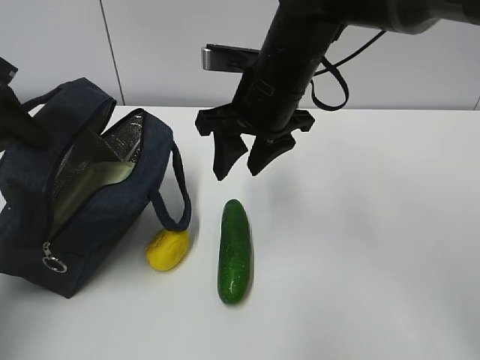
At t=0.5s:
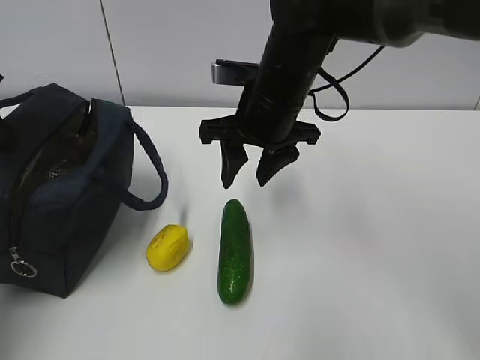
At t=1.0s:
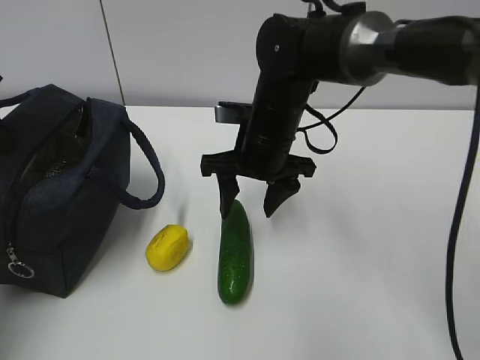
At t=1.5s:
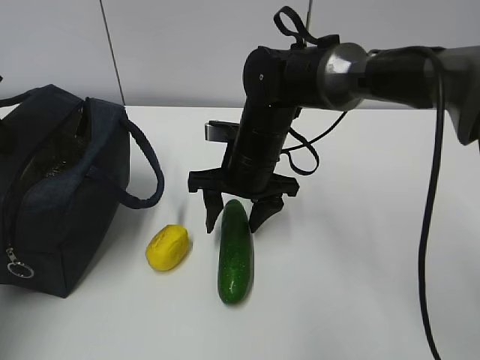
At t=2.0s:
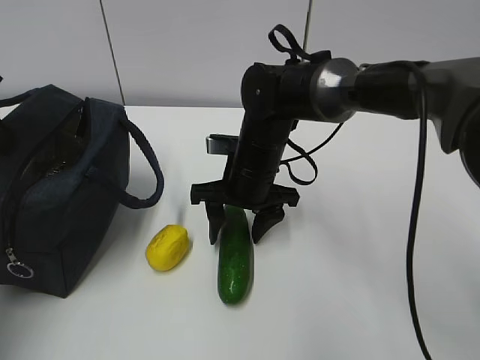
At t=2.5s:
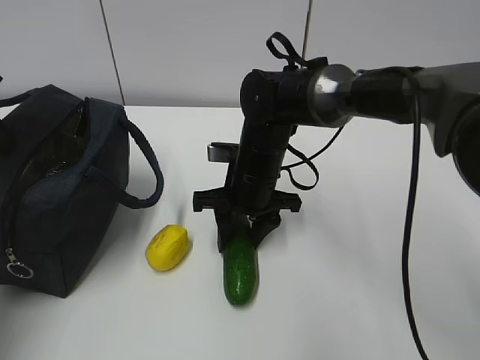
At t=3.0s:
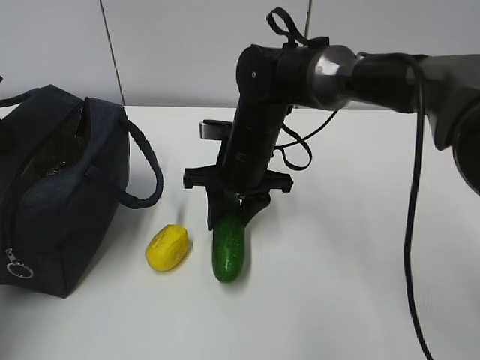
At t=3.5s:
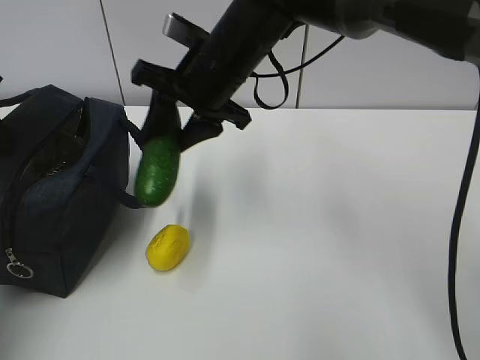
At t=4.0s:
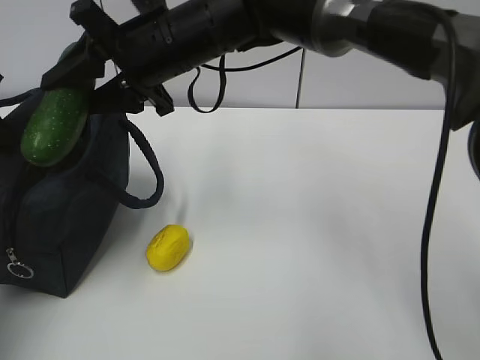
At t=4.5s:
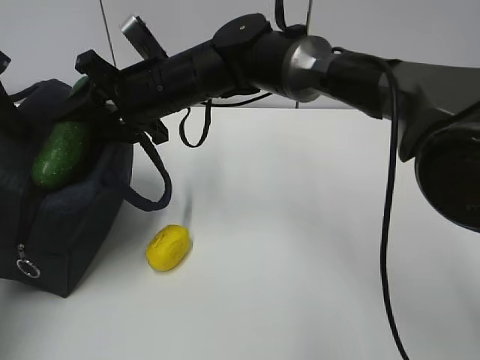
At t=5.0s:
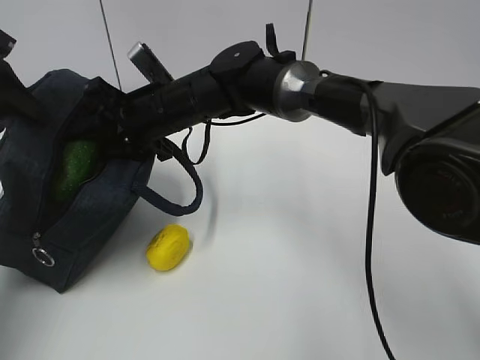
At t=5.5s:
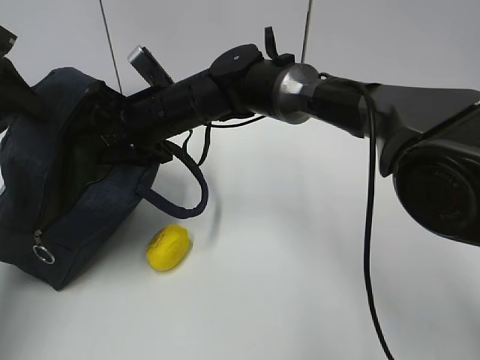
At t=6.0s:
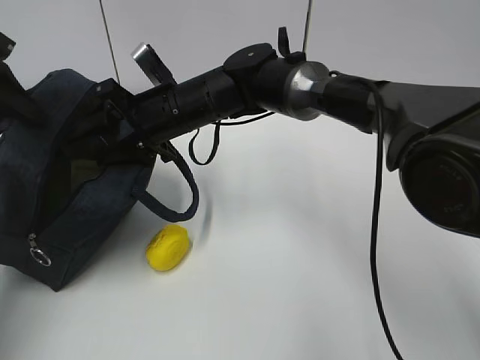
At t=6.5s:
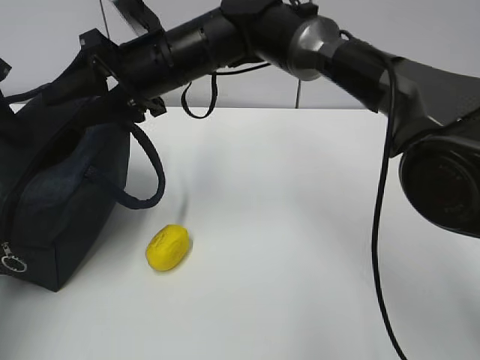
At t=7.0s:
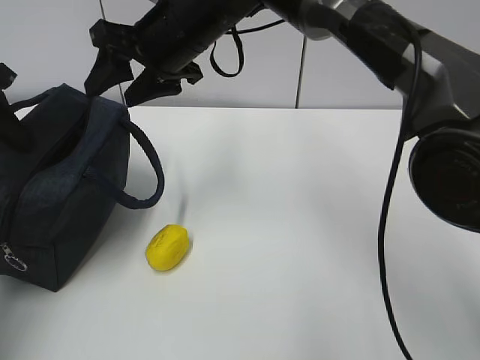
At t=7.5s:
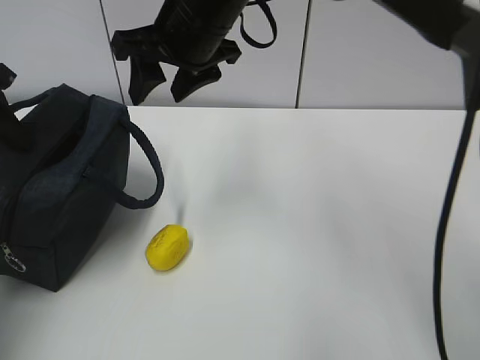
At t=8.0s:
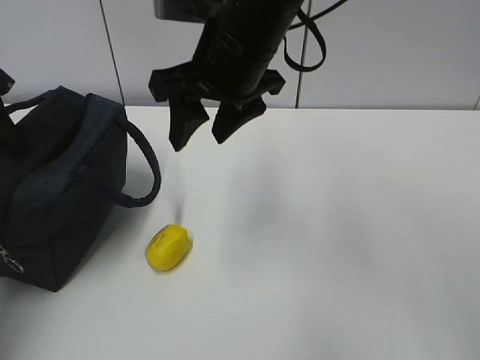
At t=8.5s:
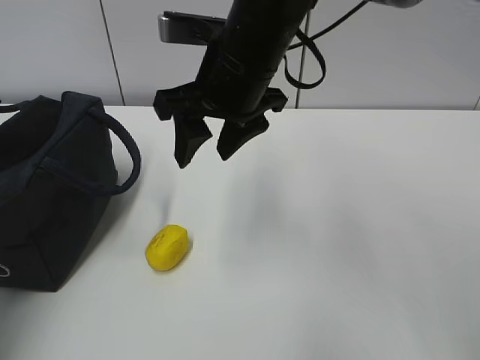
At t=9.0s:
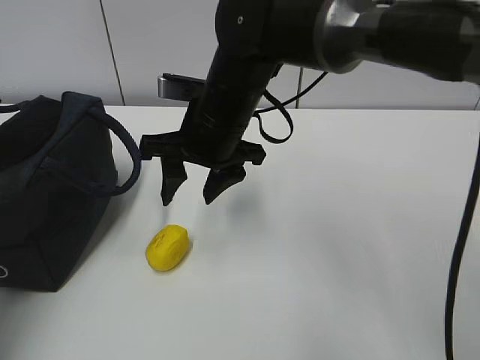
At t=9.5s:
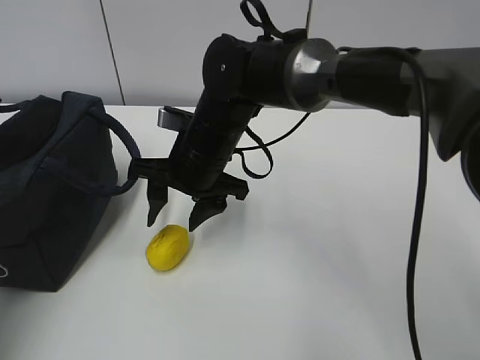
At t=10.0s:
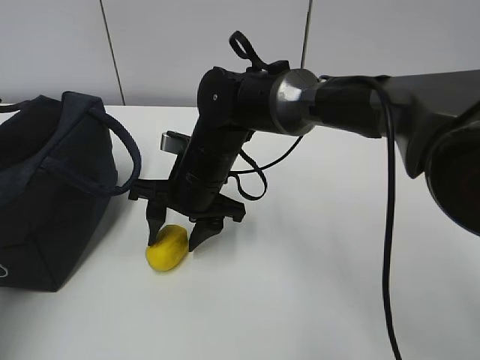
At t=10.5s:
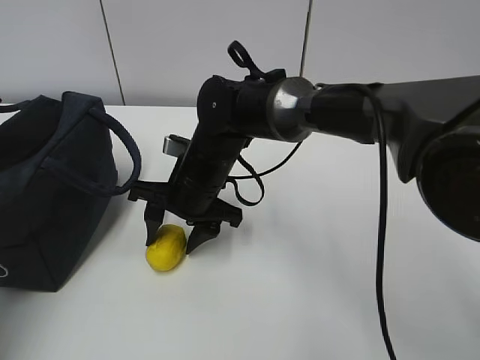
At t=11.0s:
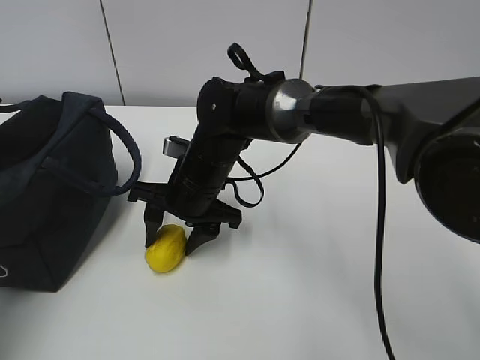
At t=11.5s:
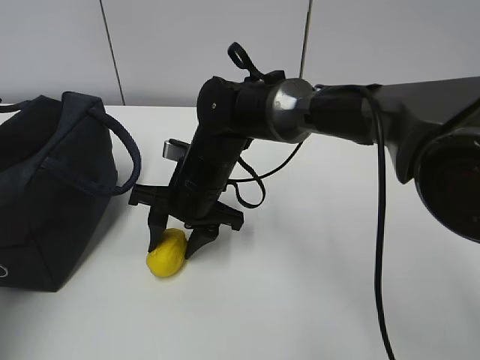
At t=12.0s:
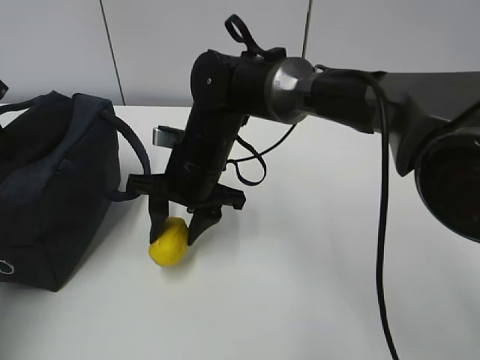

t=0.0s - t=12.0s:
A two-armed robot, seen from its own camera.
Step, t=0.0s - t=4.5s: Grab the lemon with your right hand.
Step, t=5.0s - t=7.5s: Secure the lunch bag with your left hand.
Step, t=8.0s - t=9.0s: Grab the lunch bag with your right hand.
t=0.0s - t=2.0s: The right gripper heads downward, covering approximately 10 cm.
t=2.0s - t=4.0s: The right gripper shifts roughly 15 cm upward and to the left.
t=4.0s - t=6.0s: The right gripper goes roughly 10 cm downward.
t=6.0s - t=8.0s: The right gripper goes approximately 15 cm upward, backward and to the right.
t=8.0s - t=10.0s: The right gripper moves downward, roughly 15 cm.
t=10.0s - t=12.0s: The grippers make only small movements.

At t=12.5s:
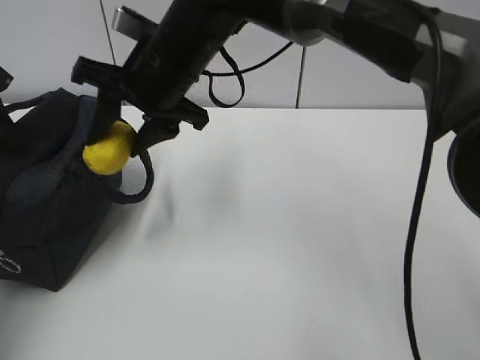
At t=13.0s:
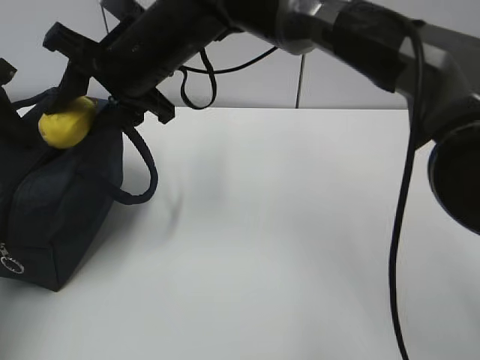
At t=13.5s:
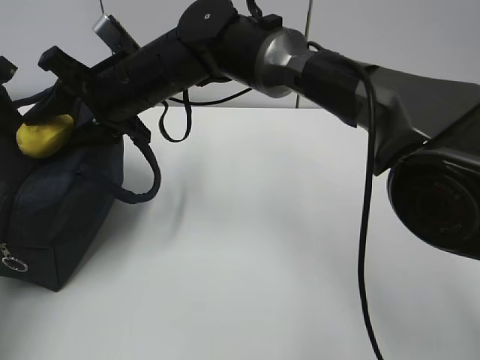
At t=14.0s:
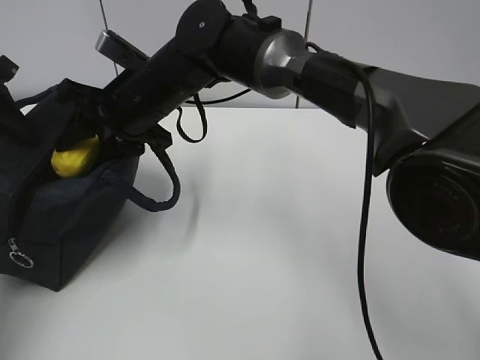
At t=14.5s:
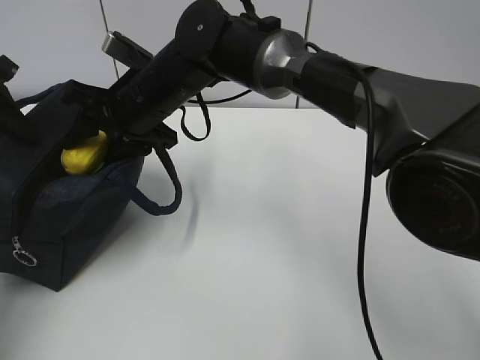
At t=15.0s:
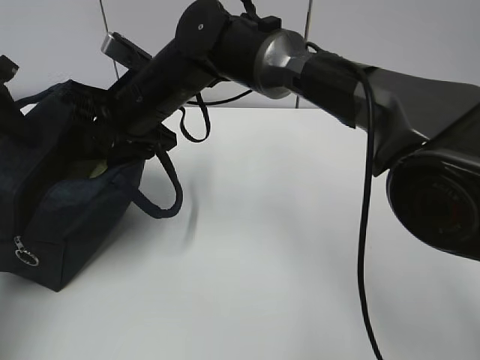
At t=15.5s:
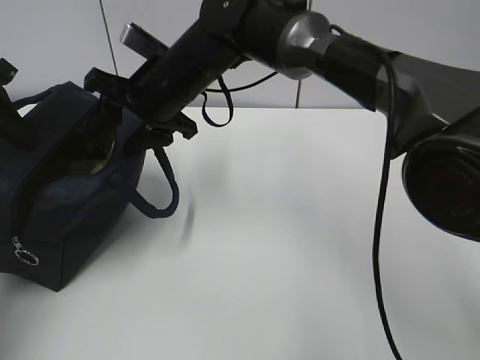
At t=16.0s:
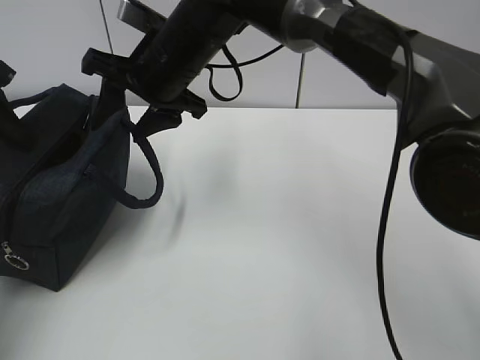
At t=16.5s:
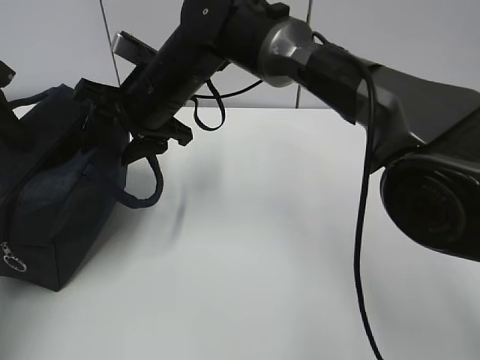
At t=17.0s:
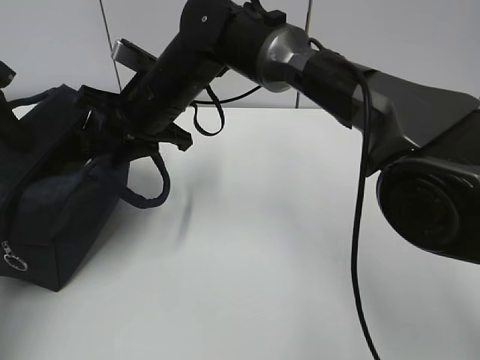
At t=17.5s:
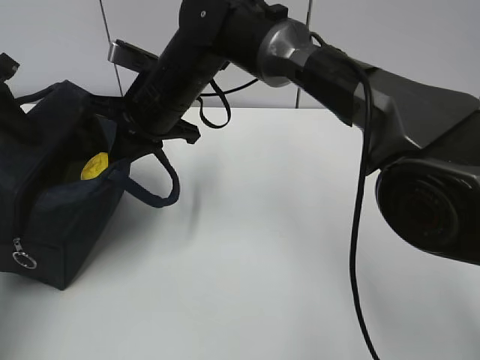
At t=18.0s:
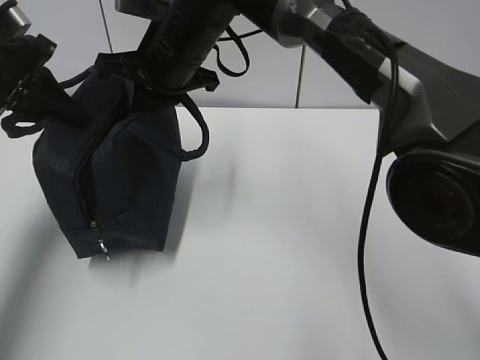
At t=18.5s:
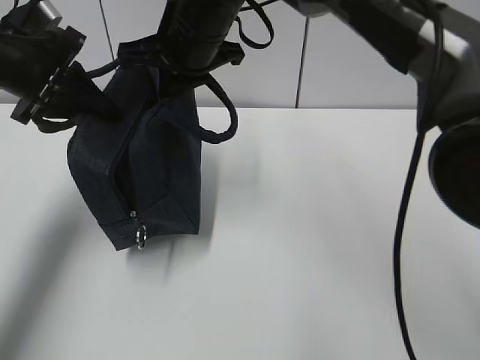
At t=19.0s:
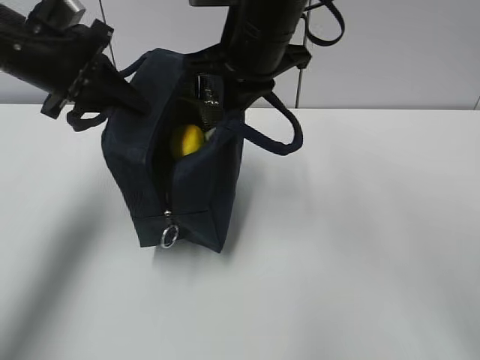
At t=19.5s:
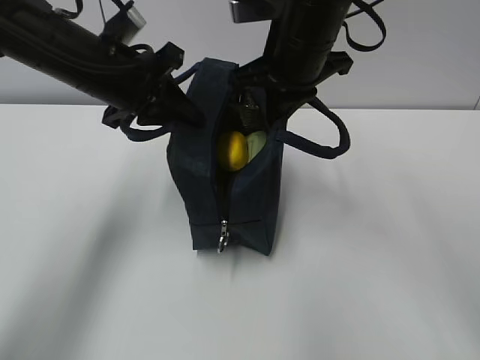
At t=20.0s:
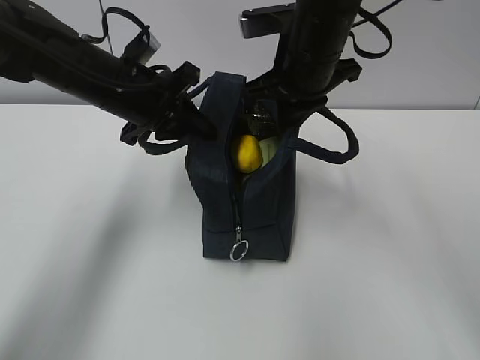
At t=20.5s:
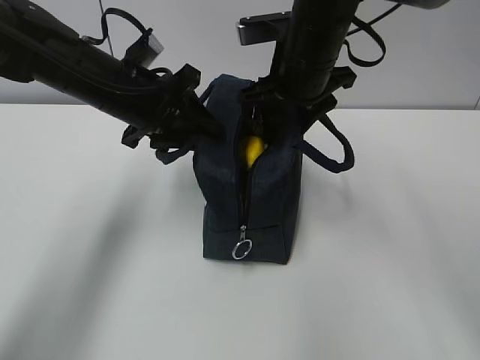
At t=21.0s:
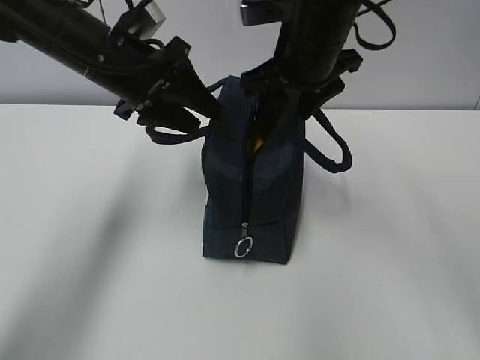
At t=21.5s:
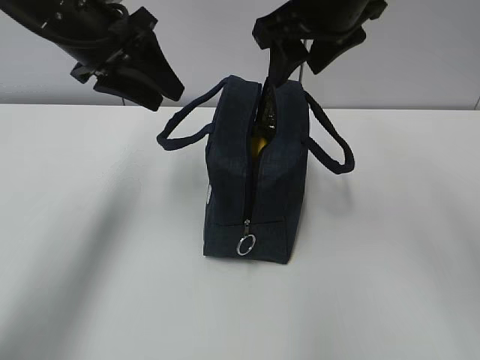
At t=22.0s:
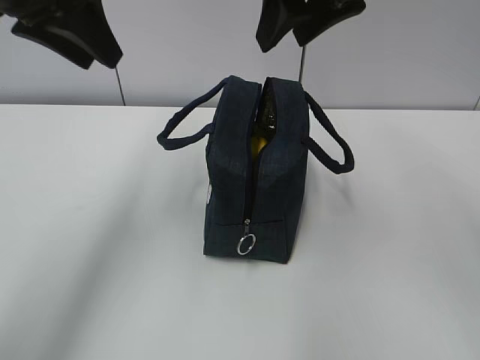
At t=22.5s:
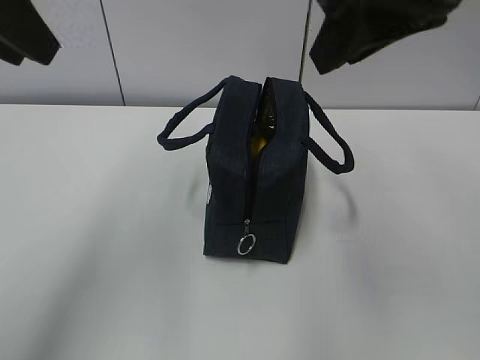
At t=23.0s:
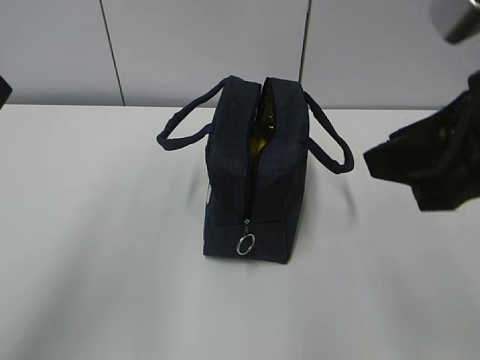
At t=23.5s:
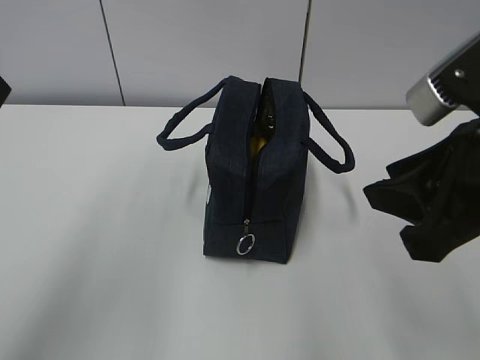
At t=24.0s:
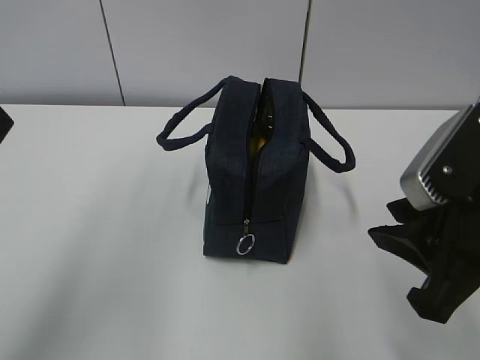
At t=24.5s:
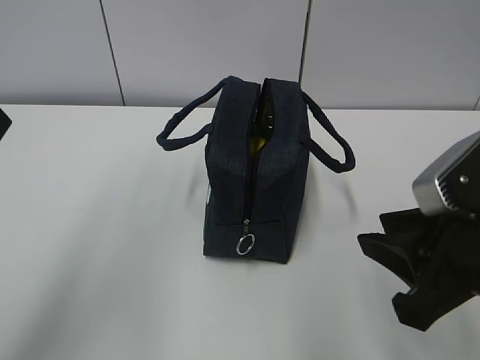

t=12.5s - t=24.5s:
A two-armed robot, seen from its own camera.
t=12.5s - t=14.5s: The right gripper ends up roughly 5 cm from where it was.
t=14.5s - t=16.5s: The grippers stay close to where they were, moving slightly.
t=16.5s - t=18.5s: The right gripper goes roughly 5 cm upward, and closes its fingers. The left gripper shifts about 10 cm to the right.
t=18.5s - t=20.5s: The grippers both shift to the right by approximately 10 cm. The left gripper opens. The right gripper opens.
t=20.5s - t=22.5s: The right gripper shifts roughly 20 cm backward and upward, while the left gripper shifts some 25 cm upward, backward and to the left.
t=22.5s - t=24.5s: The left gripper goes approximately 5 cm backward. Meanwhile the right gripper moves downward and backward, some 20 cm.

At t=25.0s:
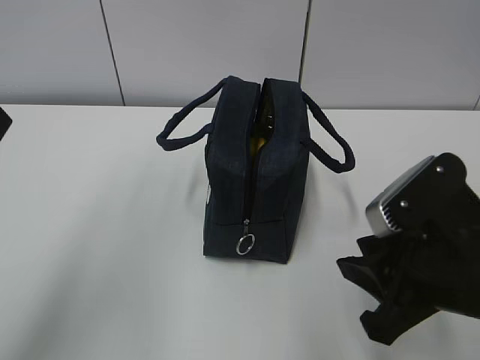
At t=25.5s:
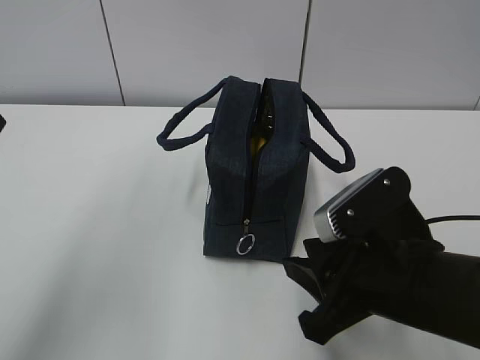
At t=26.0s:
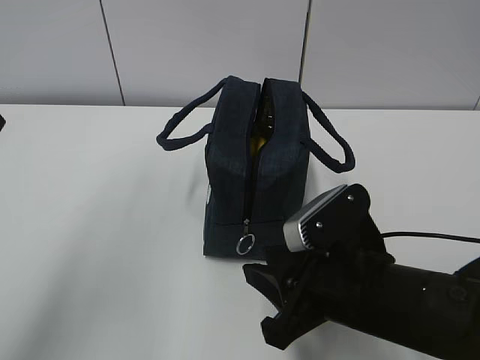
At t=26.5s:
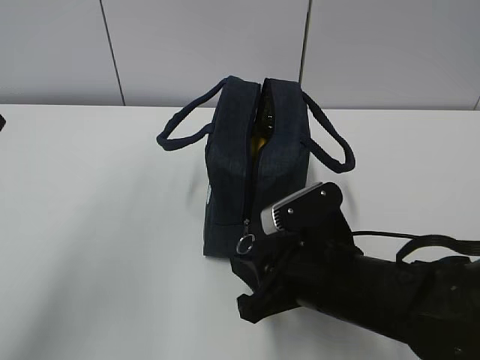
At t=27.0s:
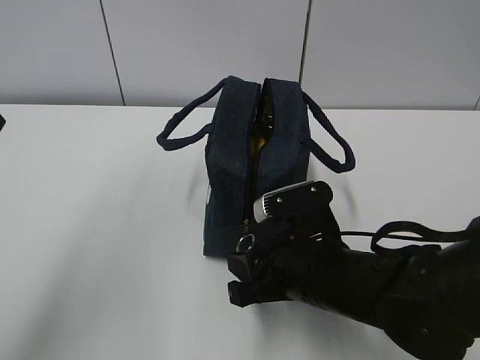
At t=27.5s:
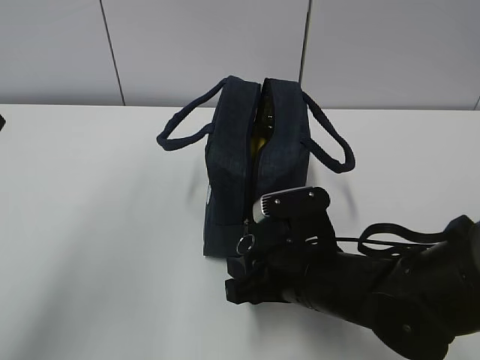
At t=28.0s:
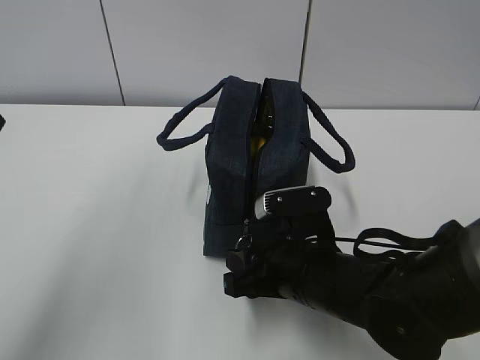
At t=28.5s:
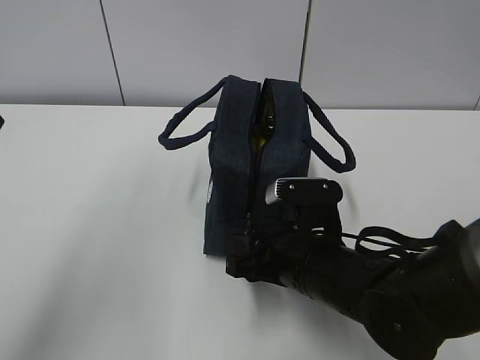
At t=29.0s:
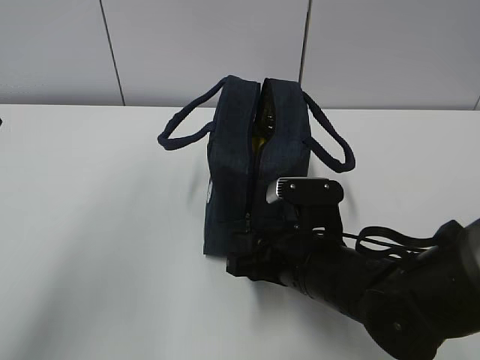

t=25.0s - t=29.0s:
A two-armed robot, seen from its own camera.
t=25.0s - t=27.0s: The right gripper goes roughly 15 cm to the left, downward and forward.
t=27.0s - t=29.0s: The grippers stay close to where they were, moving slightly.
